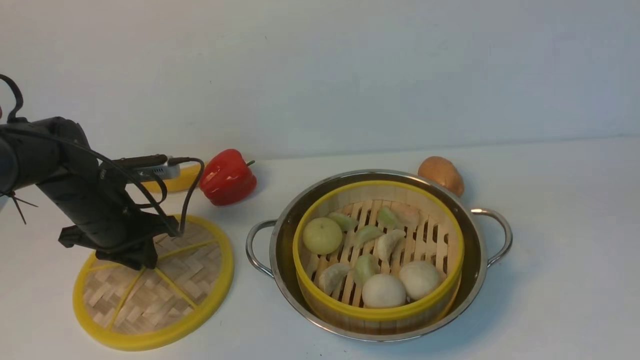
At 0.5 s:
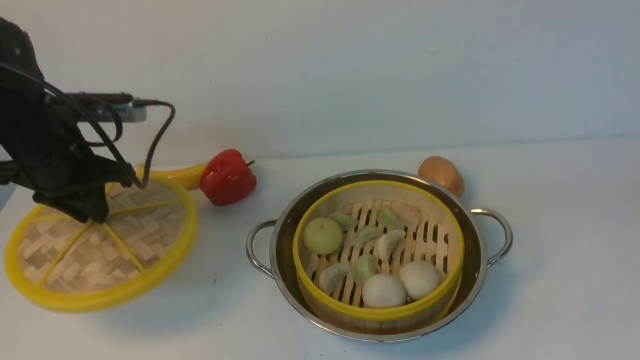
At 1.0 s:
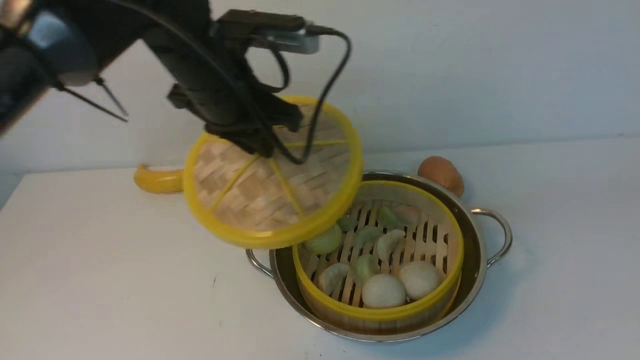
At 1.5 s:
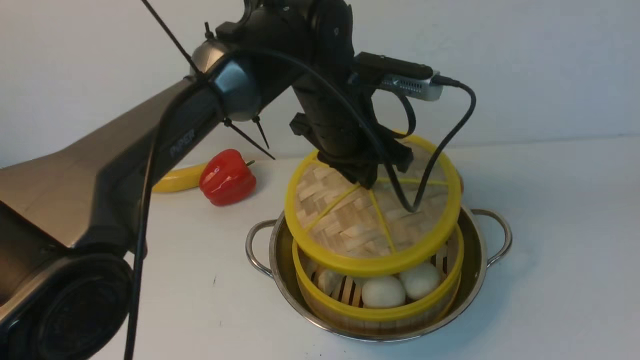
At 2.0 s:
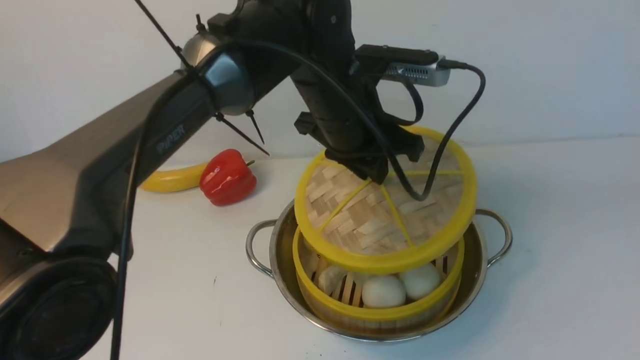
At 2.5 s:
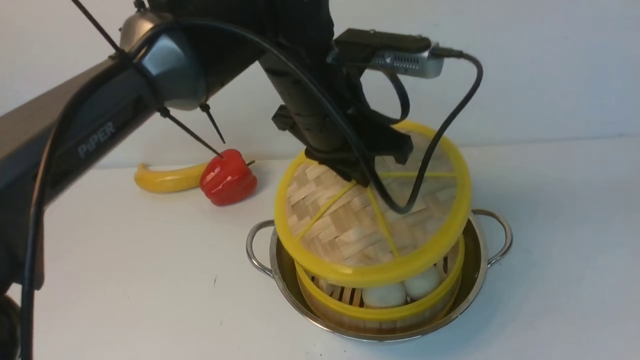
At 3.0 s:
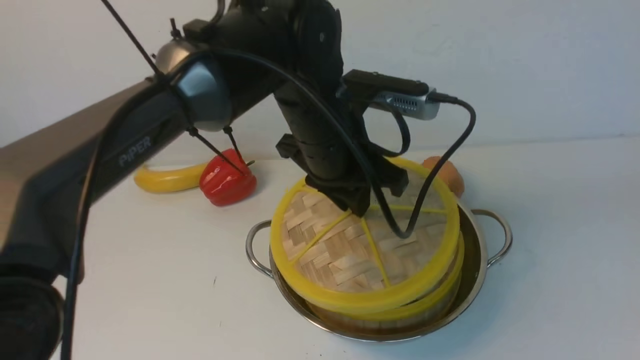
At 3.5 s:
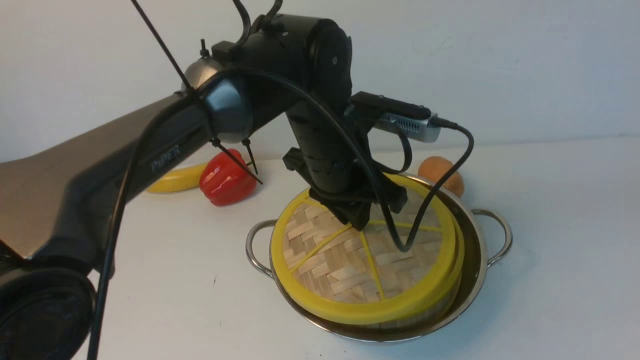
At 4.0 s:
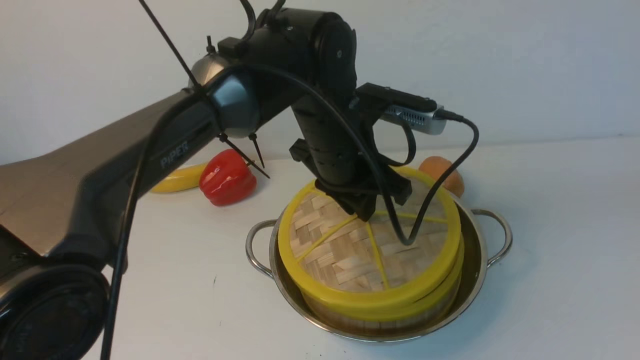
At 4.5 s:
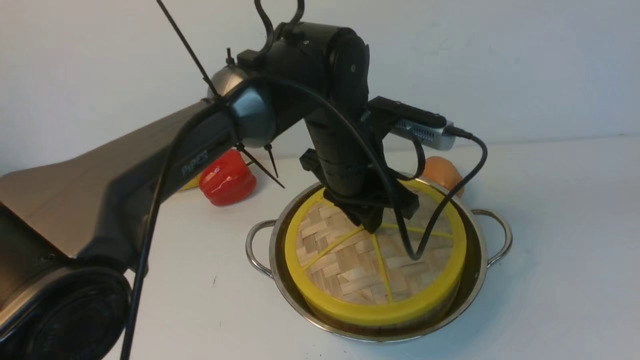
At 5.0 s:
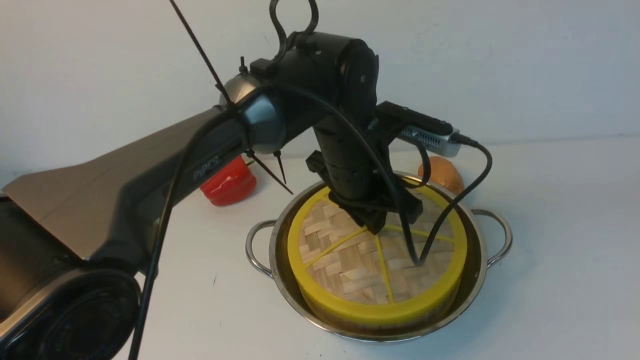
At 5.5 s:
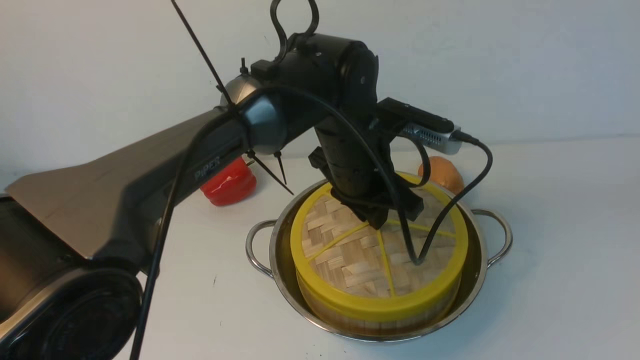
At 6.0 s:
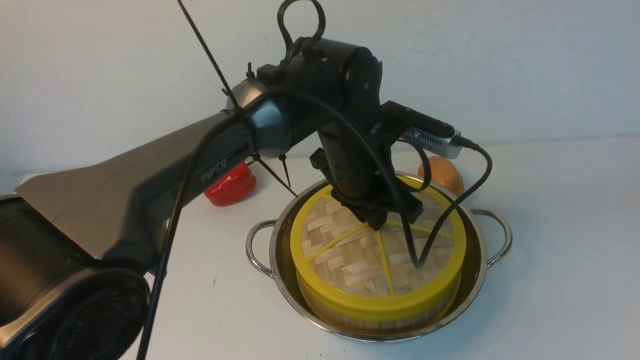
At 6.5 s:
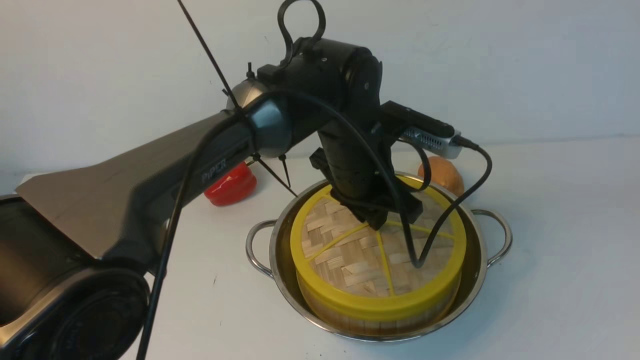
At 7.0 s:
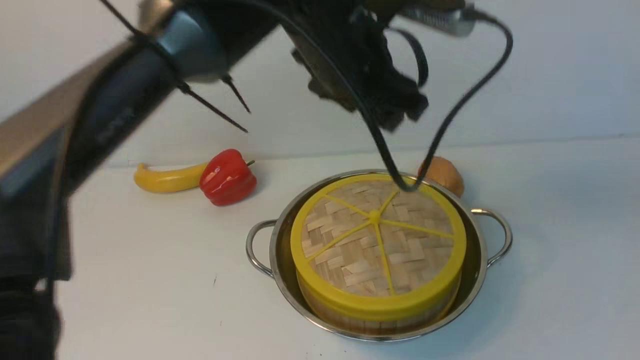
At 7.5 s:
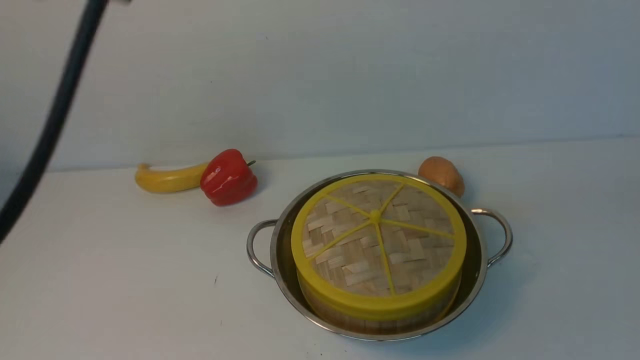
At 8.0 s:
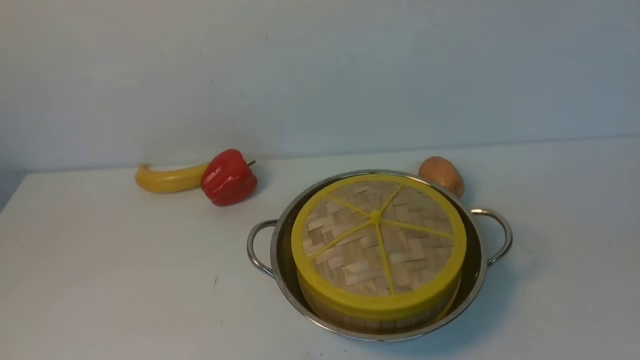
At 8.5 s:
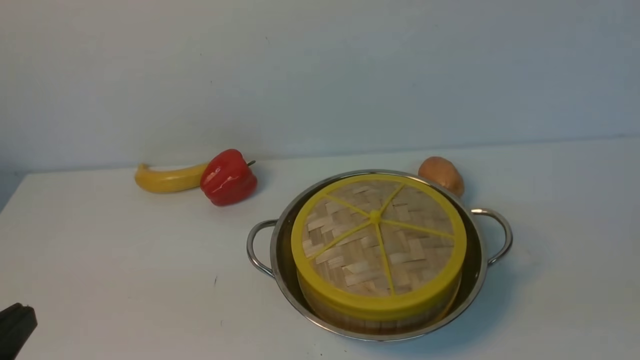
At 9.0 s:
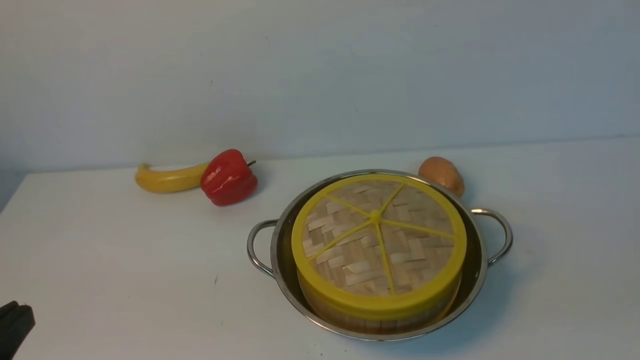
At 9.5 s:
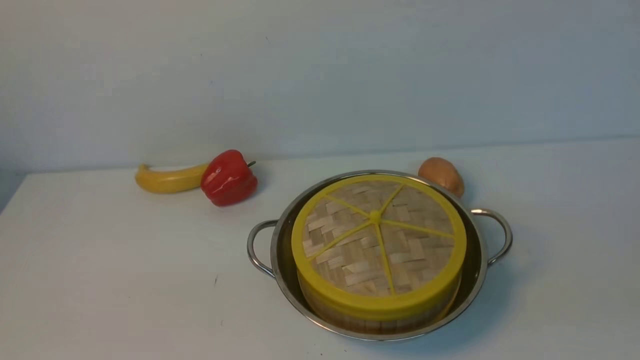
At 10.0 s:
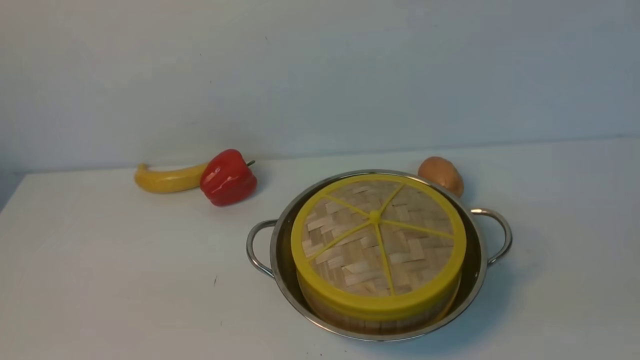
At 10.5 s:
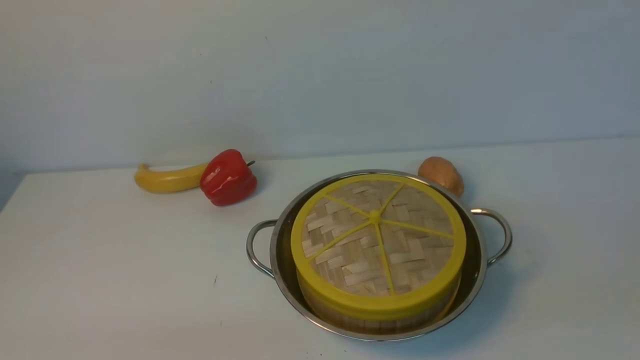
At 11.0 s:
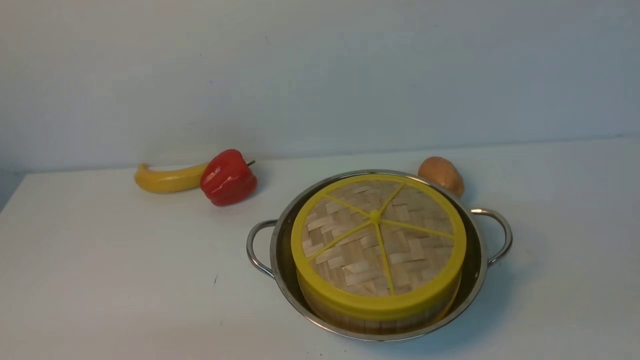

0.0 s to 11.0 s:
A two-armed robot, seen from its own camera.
Task of the whole recording: place the steamer in the pot on the white table, and put the lid on the steamer.
Step, 1.0 to 7.0 s: use the left arm to place the steamer lid on the steamer.
0.0 to 2.0 s: The left gripper travels to the right and upward by some 30 cm.
5.5 to 7.5 s: The right gripper closes, while the left gripper shifts approximately 35 cm upward, backward and to the left, and closes.
7.5 to 9.0 s: The left gripper goes about 30 cm downward, backward and to the left.
9.0 to 11.0 s: The left gripper is displaced downward by about 10 cm.

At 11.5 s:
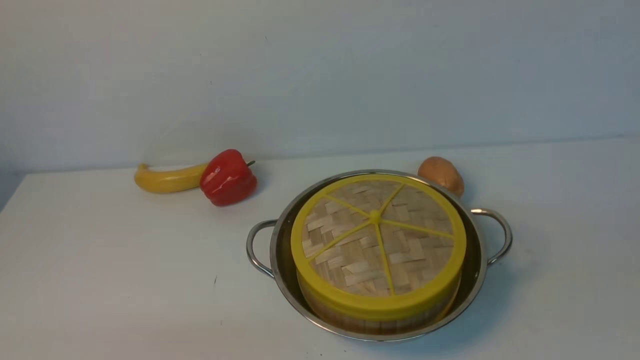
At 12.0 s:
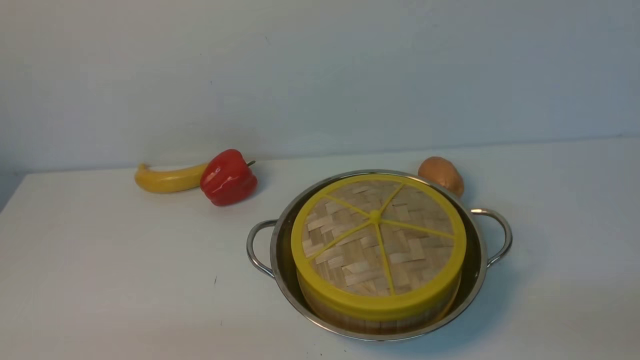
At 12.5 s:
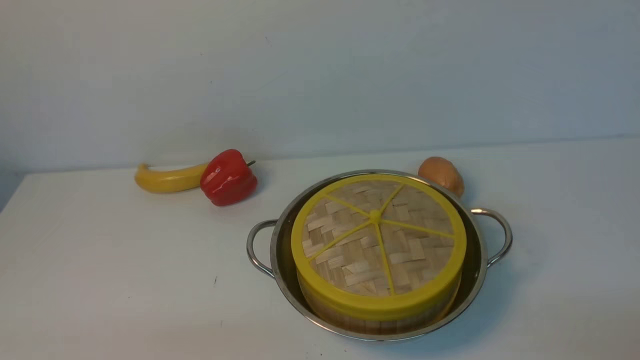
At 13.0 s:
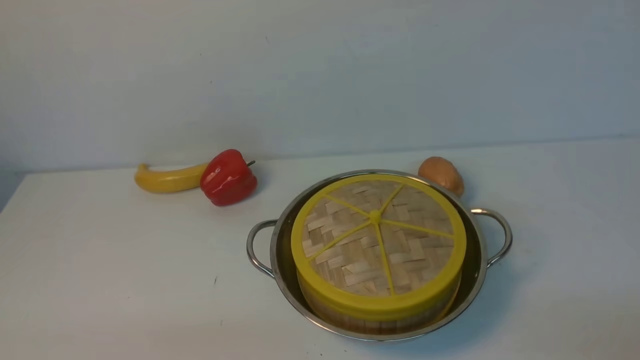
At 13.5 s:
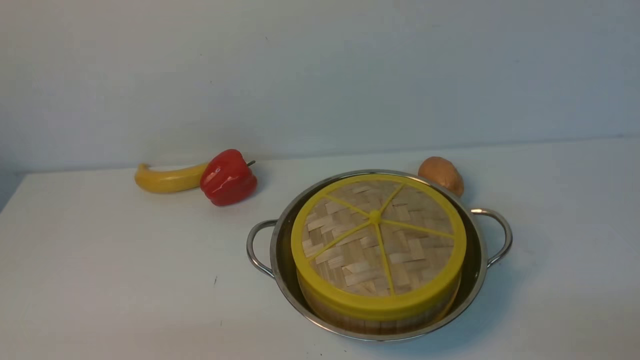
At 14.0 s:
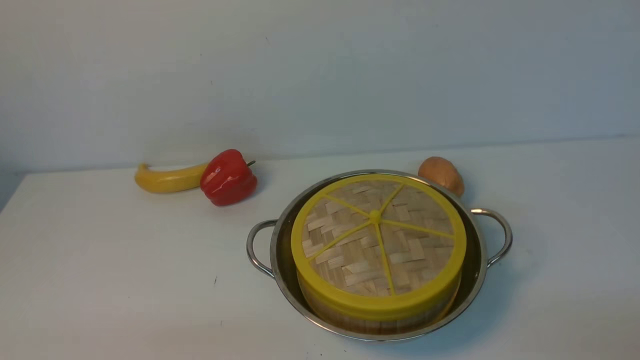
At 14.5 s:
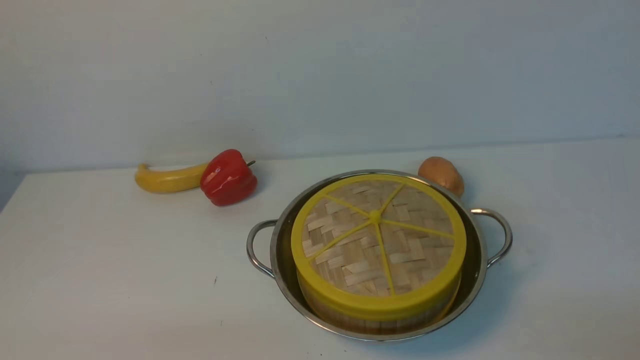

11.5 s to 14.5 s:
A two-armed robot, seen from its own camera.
Task of the whole recording: place the steamer in the pot on the white table, and put the lid on the steamer.
13.0 to 14.5 s: The two grippers keep their place.
